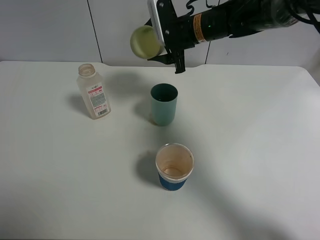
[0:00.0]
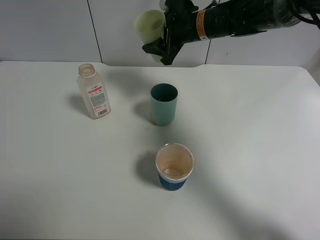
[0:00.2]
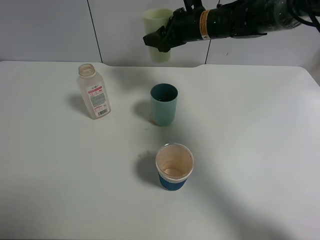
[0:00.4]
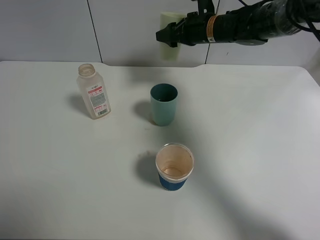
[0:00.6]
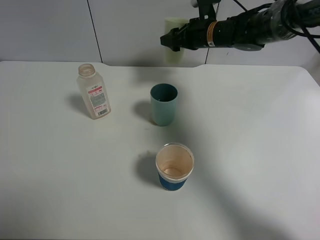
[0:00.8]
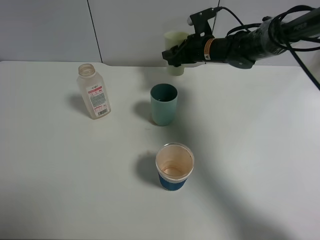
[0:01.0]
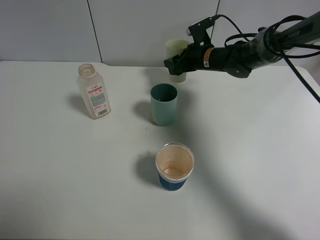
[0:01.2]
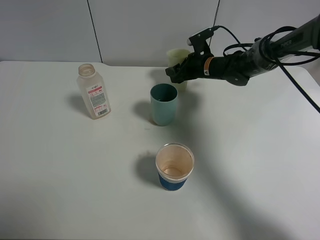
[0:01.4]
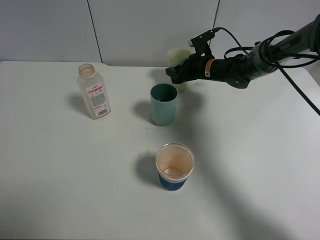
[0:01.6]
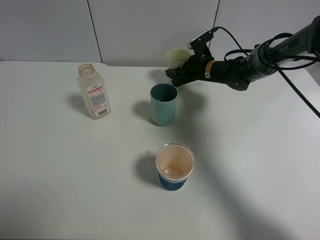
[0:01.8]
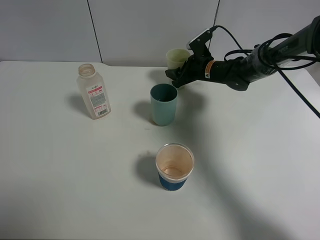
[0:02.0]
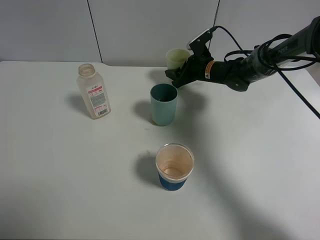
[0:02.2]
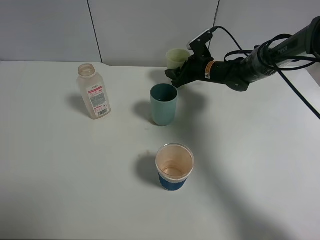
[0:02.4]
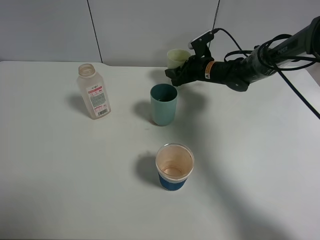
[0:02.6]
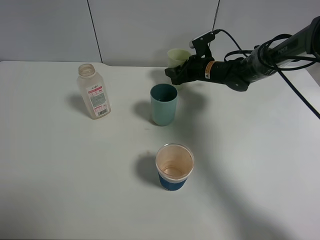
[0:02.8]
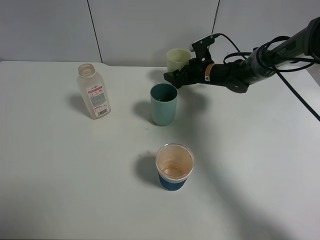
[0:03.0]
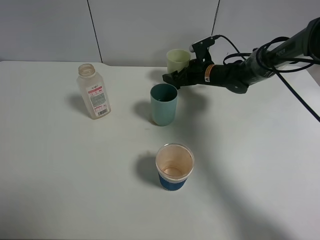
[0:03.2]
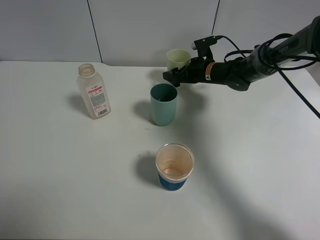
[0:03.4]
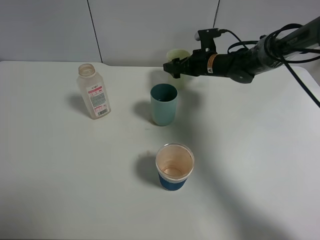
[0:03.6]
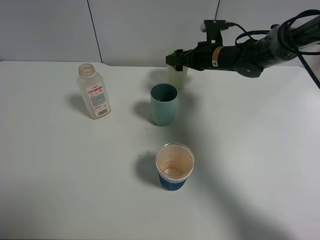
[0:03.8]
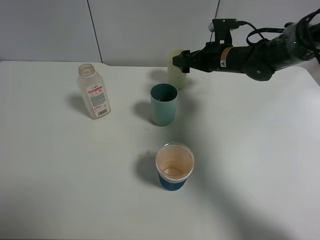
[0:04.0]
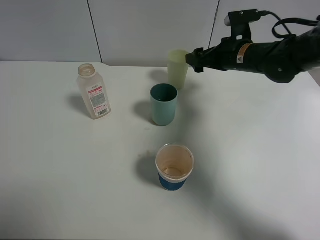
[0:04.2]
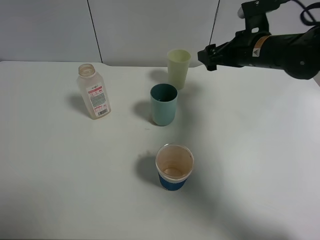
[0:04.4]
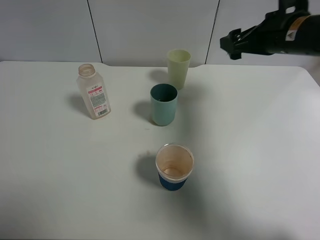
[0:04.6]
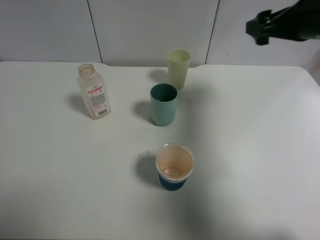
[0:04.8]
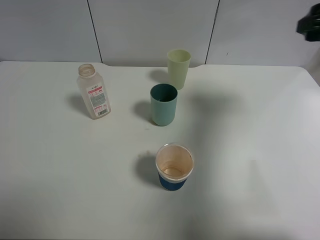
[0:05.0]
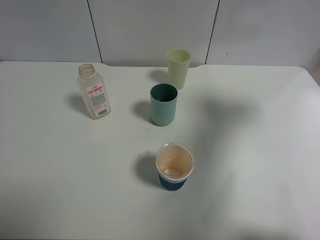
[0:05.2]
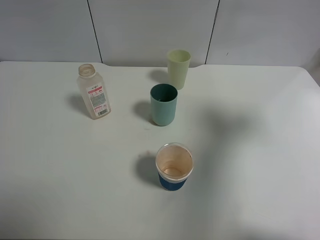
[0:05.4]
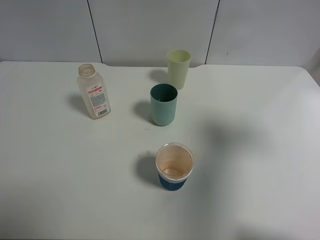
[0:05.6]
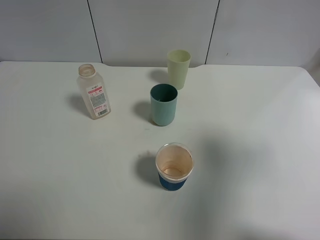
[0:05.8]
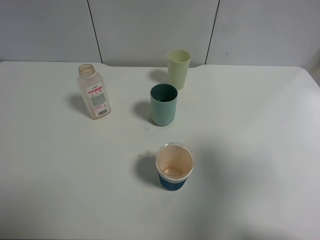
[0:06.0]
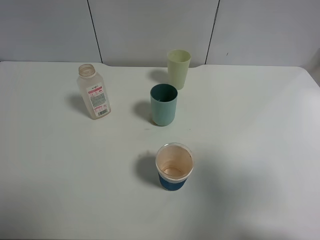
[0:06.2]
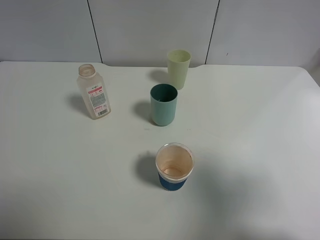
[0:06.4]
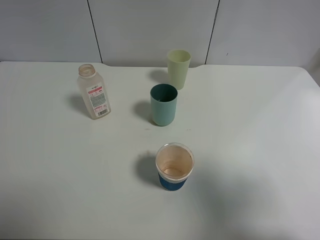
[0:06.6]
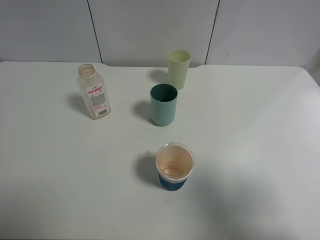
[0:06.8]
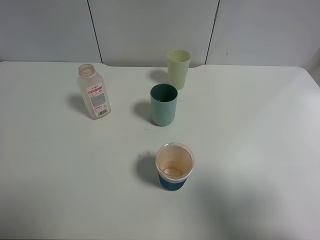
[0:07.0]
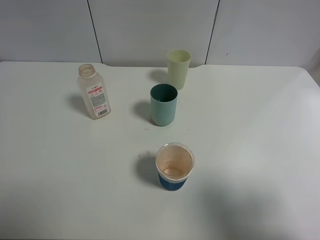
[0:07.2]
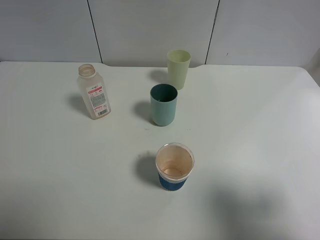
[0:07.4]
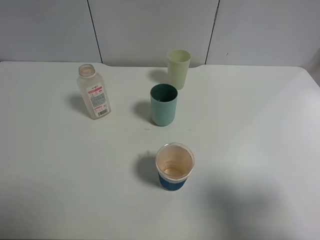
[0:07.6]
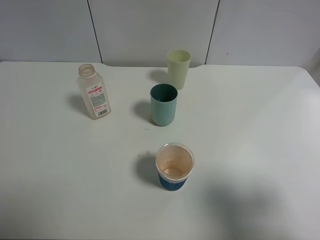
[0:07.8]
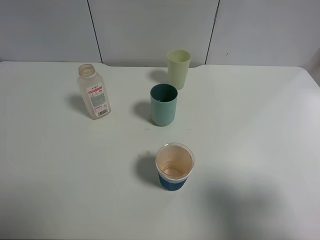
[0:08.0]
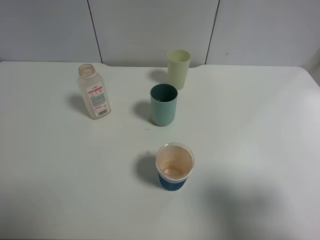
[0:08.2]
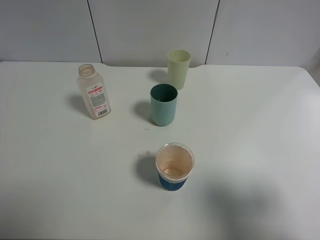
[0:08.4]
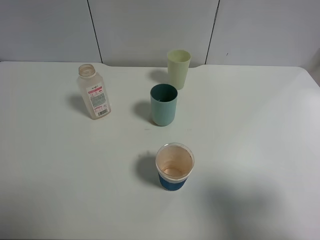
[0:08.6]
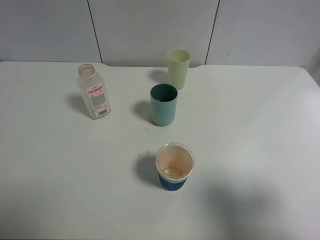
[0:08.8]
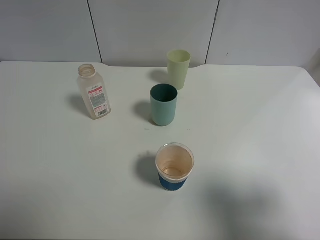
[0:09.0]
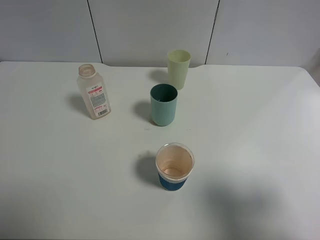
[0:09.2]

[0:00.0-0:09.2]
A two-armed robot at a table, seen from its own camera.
Task of the whole recording: use a clamp to hold the bottle of the drink, pour the beverage into a random cup, then clamp the cup containing the drink and pour the drink into another random cup.
Step, 0:00.2 to 0:03.8: Place the green plastic cup on the table with right gripper.
0:00.0 to 0:01.6: The right gripper is displaced downward and to the right by about 15 cm.
0:01.6 to 0:03.0: The right gripper opens up.
0:03.0 to 0:04.6: The right gripper is displaced upward, backward and to the right by about 25 cm.
0:04.6 to 0:06.2: The right gripper travels backward by approximately 30 cm.
0:06.2 to 0:07.6: The right gripper moves downward, roughly 5 cm.
0:07.6 to 0:09.2: Both grippers stay put.
